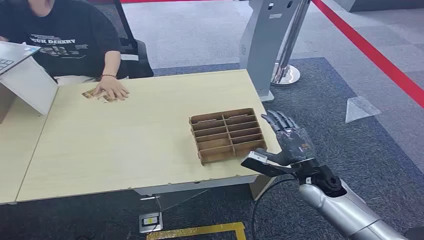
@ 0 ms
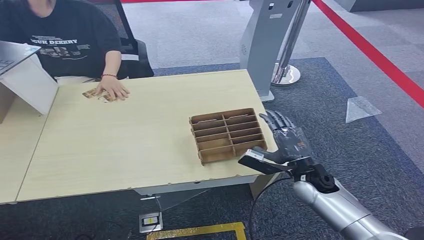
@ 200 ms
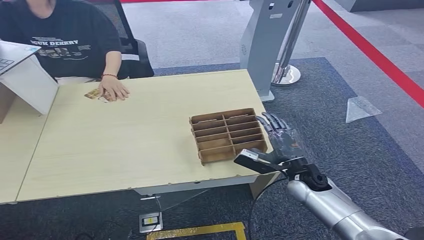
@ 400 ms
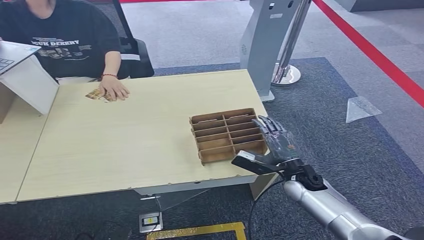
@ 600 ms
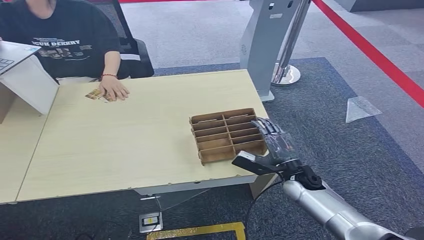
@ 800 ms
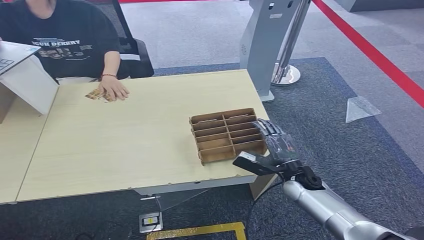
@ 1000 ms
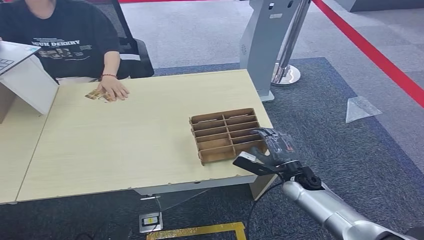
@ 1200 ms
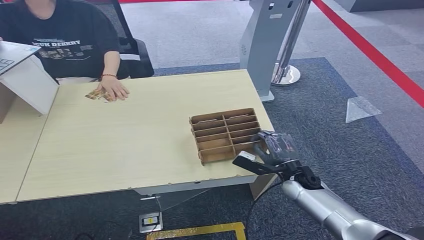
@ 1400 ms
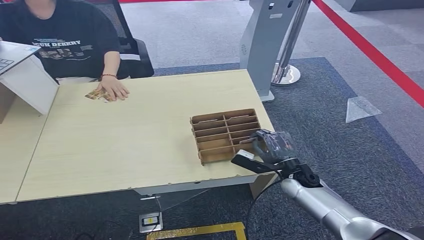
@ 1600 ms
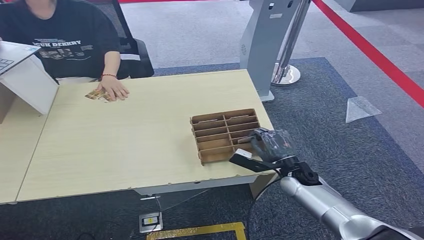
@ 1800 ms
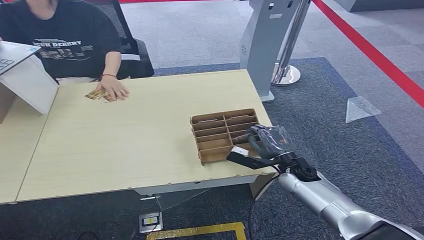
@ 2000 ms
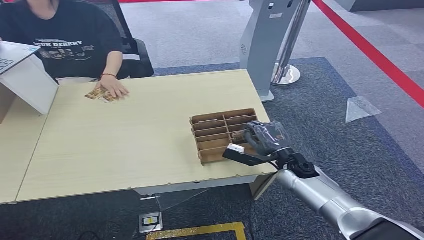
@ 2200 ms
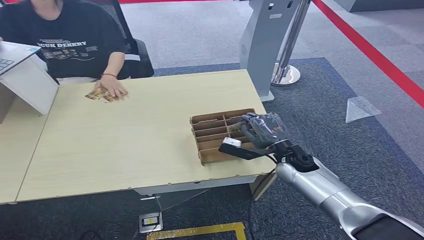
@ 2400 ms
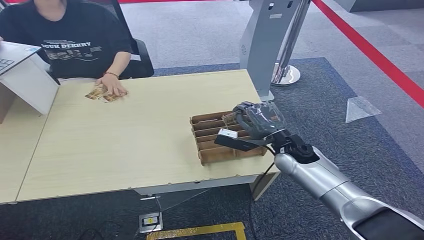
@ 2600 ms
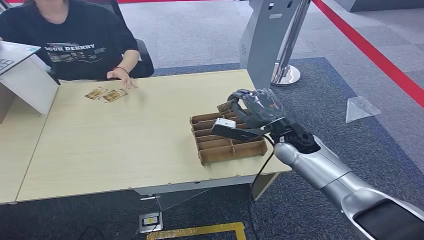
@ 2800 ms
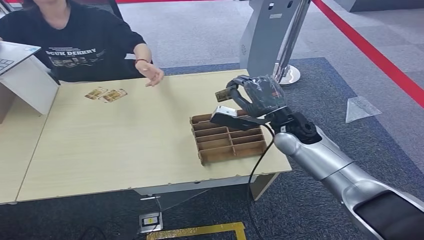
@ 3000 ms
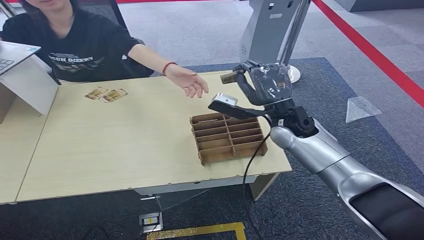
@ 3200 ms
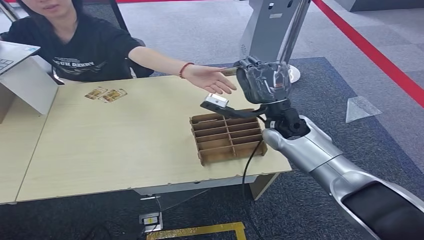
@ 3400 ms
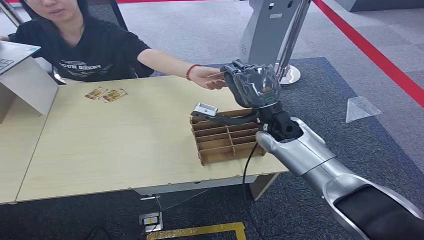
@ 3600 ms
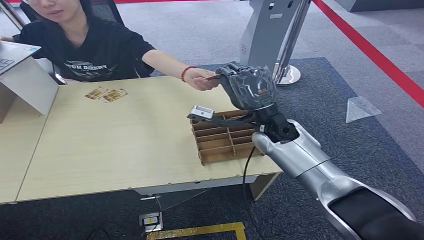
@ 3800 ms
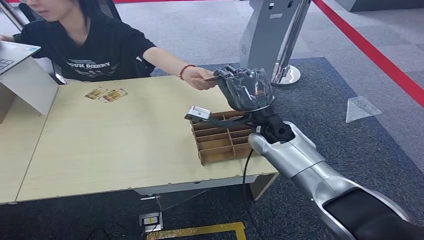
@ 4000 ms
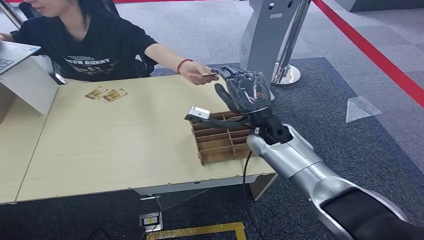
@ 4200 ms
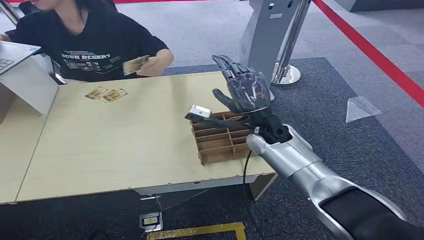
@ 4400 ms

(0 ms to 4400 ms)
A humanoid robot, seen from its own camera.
Step, 0 ms - 2000 ms: Pick up the room card from the card holder.
Step, 2400 ms - 4200 ms: Hand the room card to the target.
1400 ms - 3000 ms: The right hand shifts approximately 20 cm upward and forward.
3000 ms - 4400 ms: The right hand heads to the left, covering approximately 5 cm.
